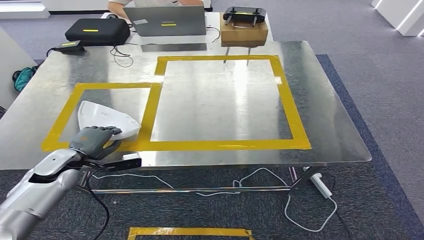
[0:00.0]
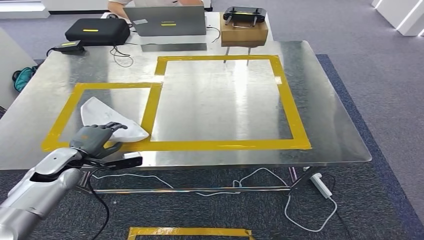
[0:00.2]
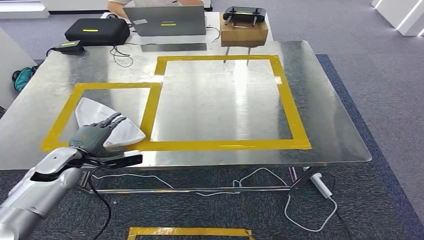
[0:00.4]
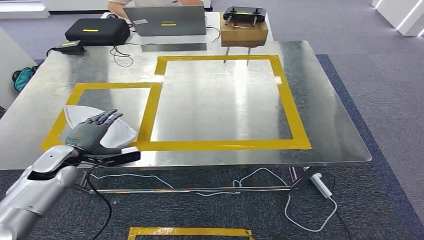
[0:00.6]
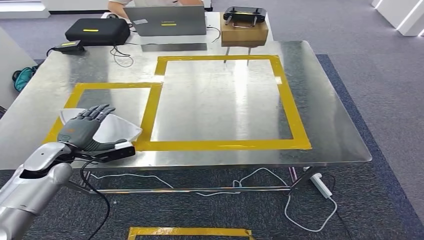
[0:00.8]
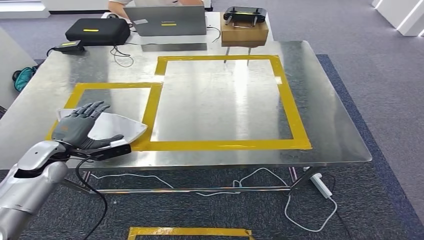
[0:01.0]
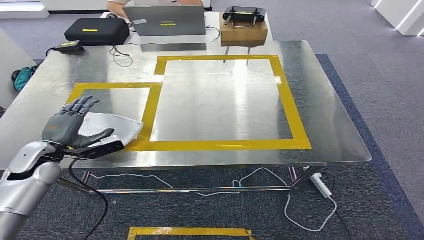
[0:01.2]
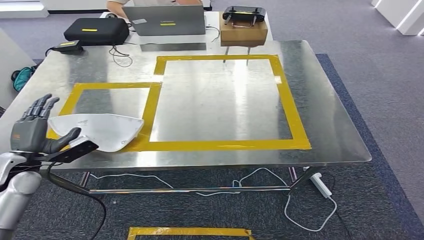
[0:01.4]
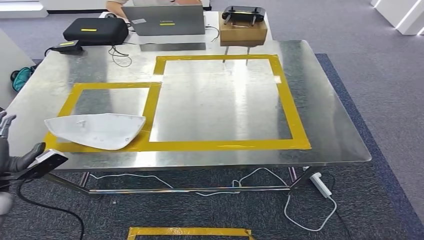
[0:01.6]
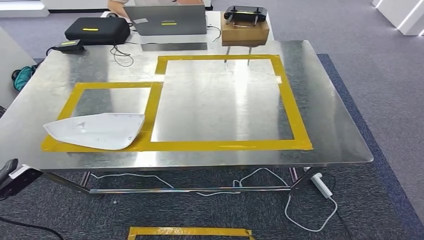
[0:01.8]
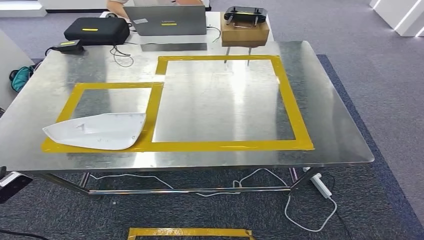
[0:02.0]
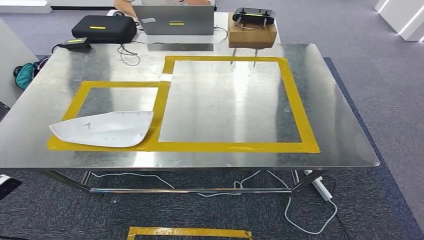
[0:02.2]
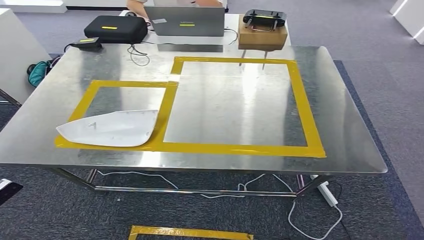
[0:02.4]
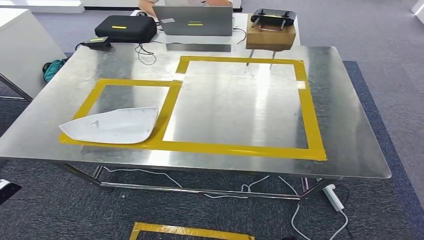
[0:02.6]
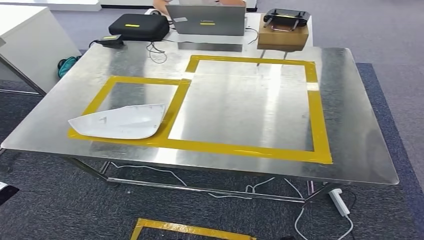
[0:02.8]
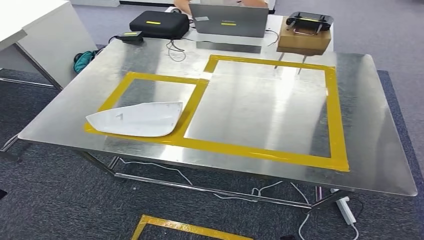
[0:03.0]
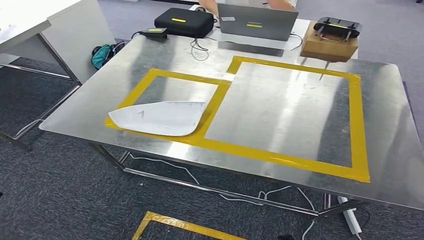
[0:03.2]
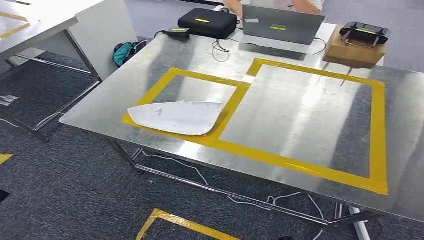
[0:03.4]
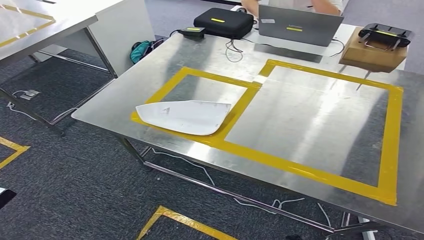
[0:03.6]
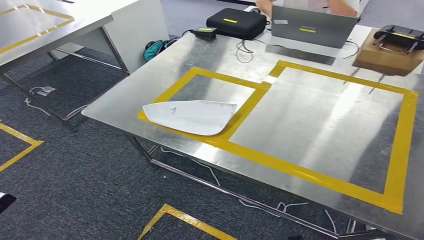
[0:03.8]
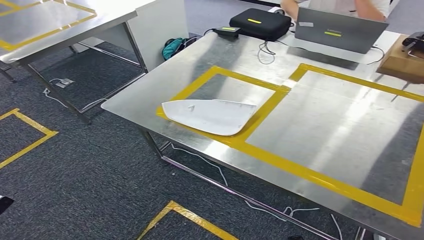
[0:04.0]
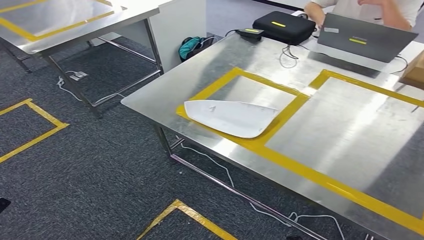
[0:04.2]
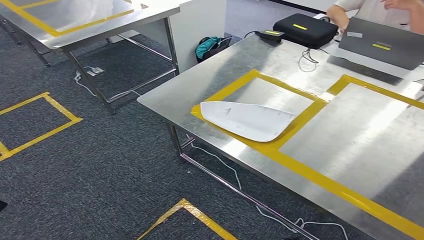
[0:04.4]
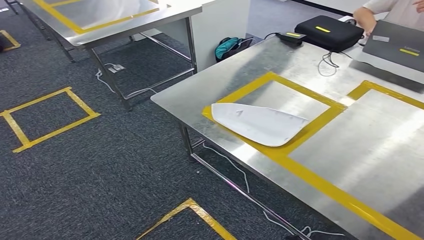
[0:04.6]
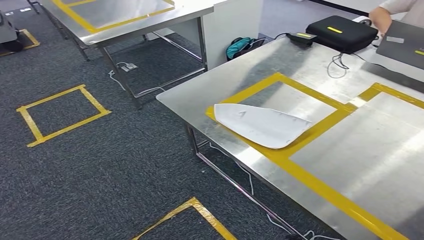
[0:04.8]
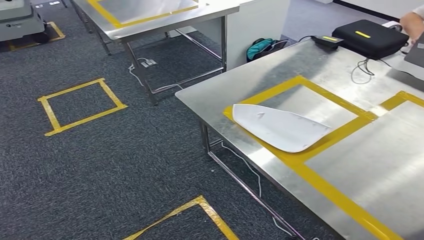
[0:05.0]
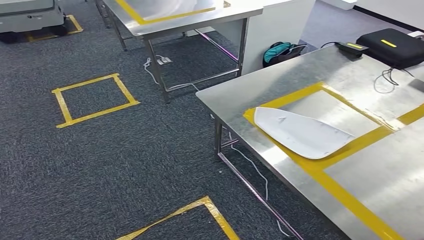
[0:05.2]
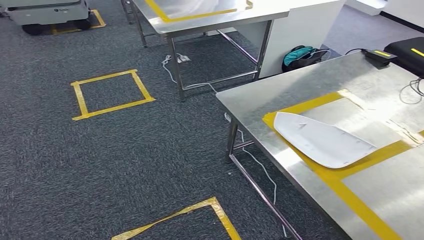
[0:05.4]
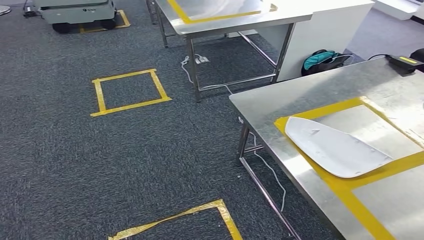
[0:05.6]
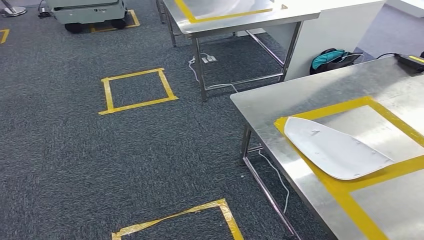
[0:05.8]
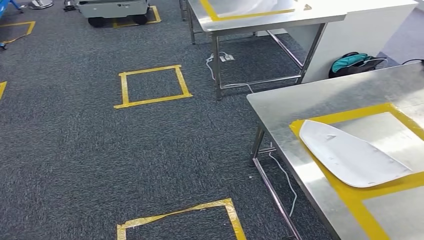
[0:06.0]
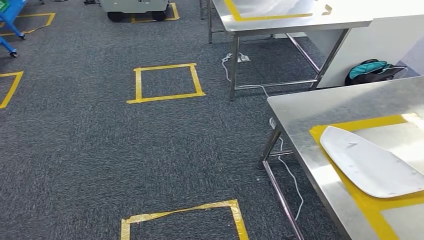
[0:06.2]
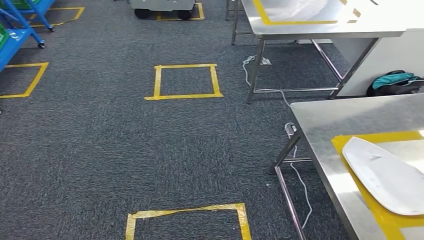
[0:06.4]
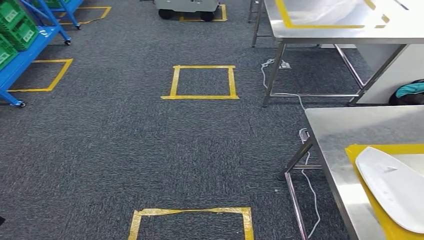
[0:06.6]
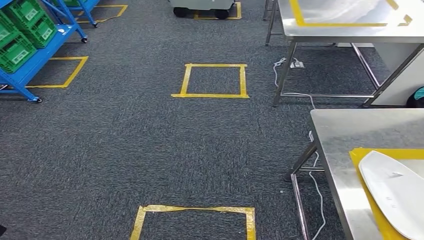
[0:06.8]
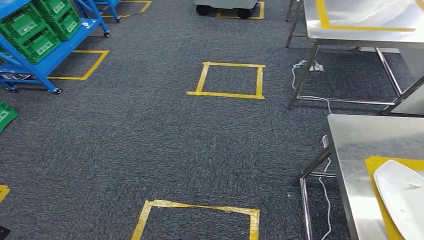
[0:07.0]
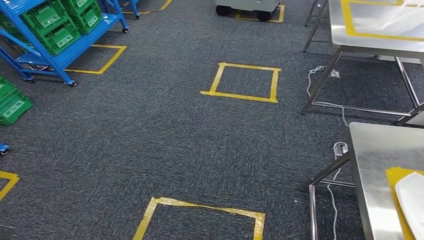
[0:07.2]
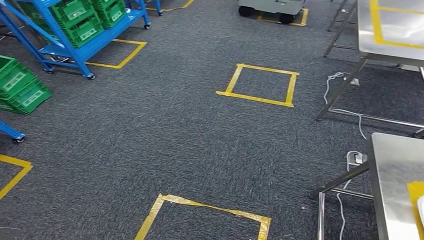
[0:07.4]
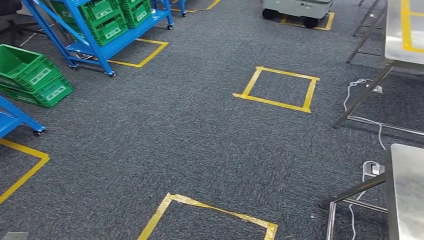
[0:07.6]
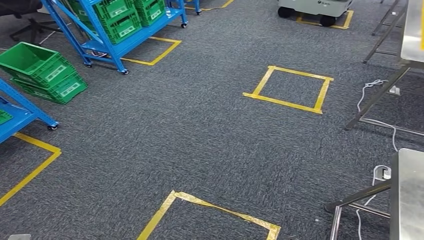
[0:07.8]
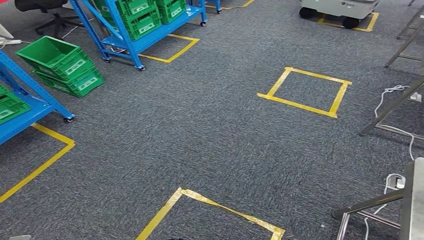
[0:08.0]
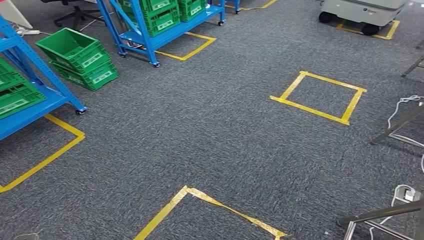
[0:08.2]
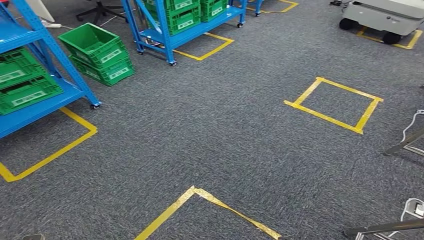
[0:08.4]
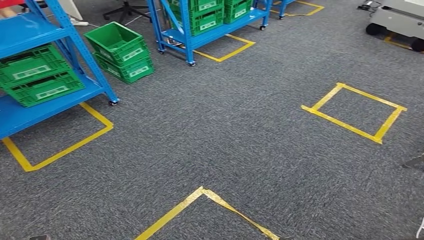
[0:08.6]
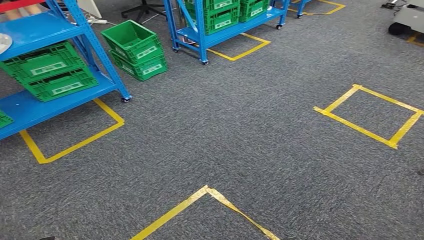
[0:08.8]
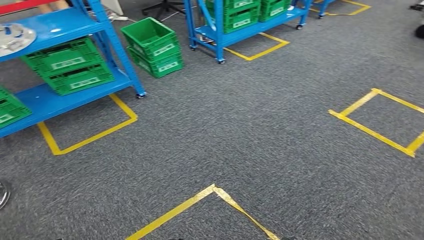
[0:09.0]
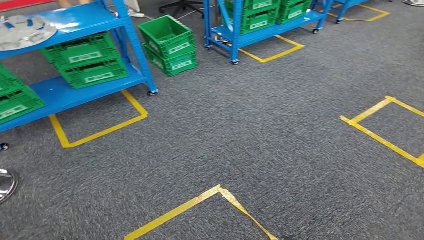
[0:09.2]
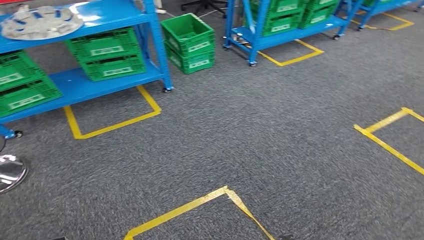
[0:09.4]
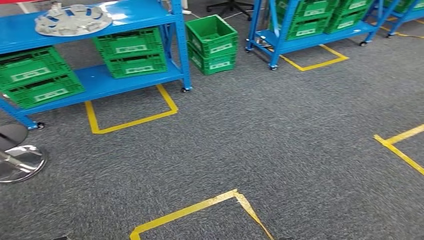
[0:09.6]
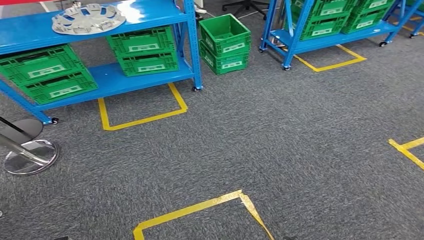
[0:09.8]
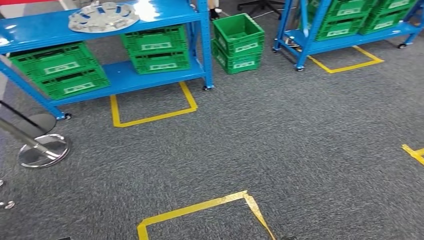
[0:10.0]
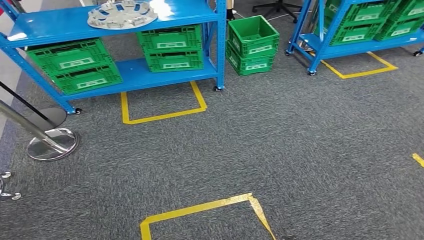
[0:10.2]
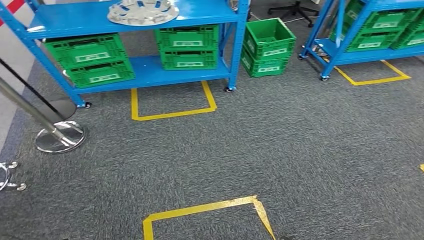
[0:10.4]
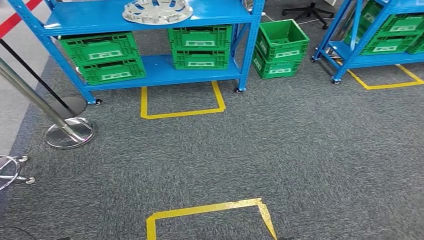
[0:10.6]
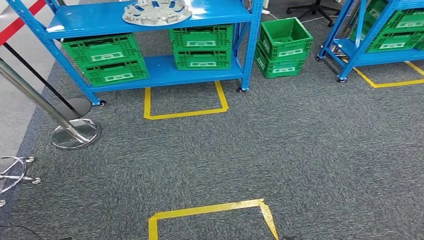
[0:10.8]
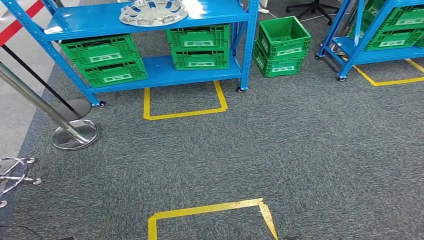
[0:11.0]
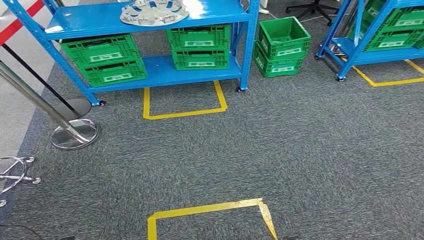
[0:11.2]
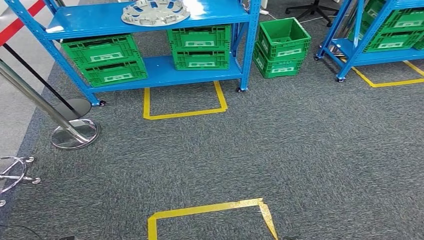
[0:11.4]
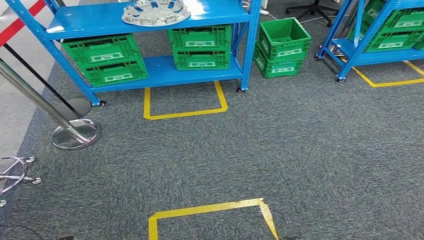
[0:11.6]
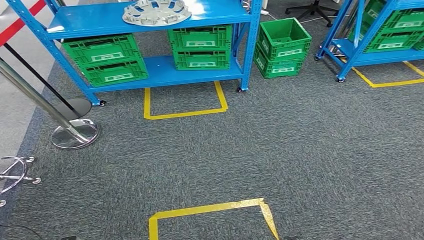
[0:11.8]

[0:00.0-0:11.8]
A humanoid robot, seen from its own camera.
Step, 0:00.0 to 0:03.6: Insert the small component into the corresponding slot on the workbench.
Step, 0:03.8 to 0:11.8: Return to the initial position at the workbench.
0:00.0 to 0:01.4: The left hand travels to the left by approximately 5 cm.
